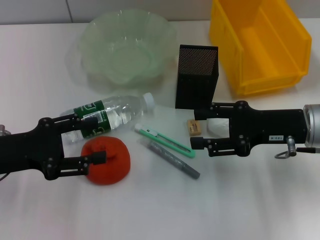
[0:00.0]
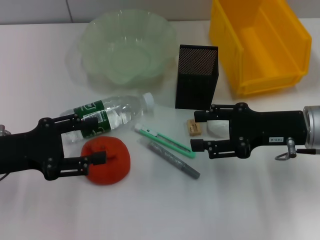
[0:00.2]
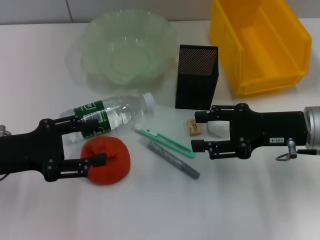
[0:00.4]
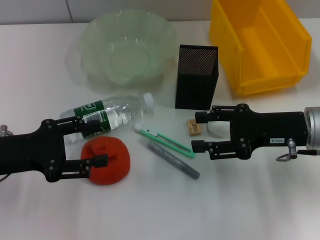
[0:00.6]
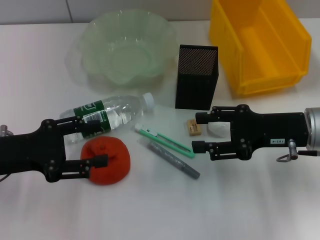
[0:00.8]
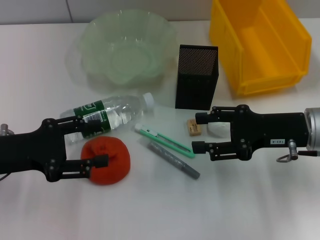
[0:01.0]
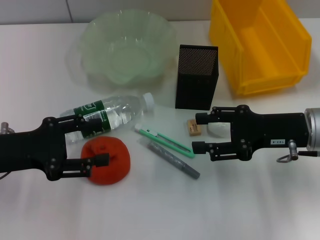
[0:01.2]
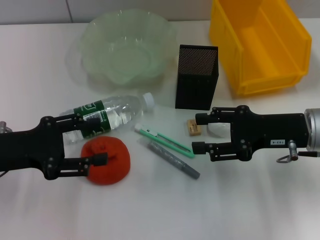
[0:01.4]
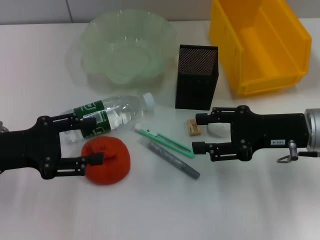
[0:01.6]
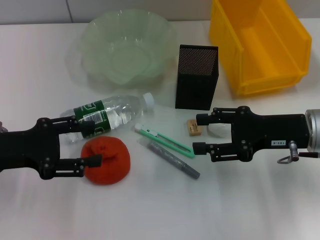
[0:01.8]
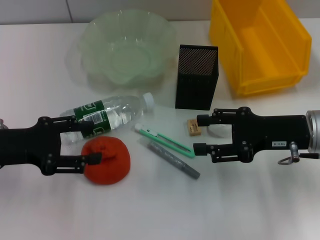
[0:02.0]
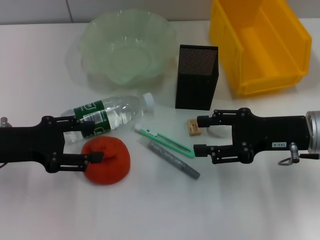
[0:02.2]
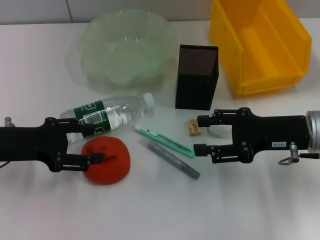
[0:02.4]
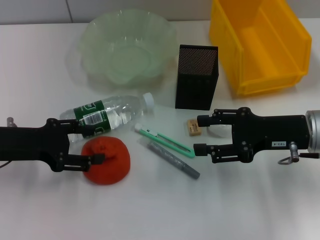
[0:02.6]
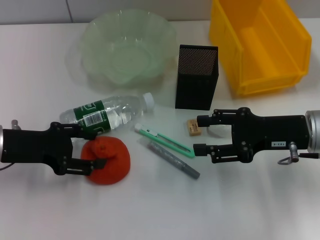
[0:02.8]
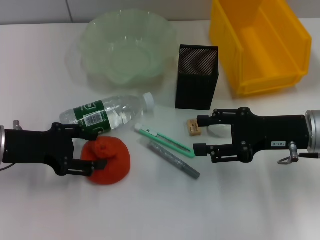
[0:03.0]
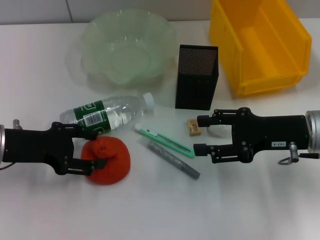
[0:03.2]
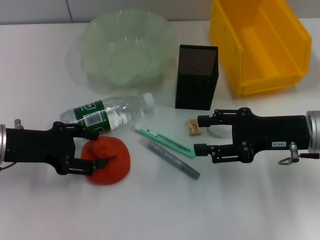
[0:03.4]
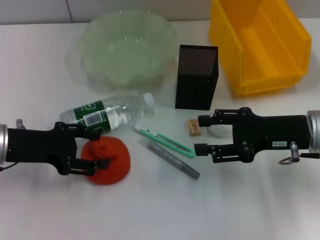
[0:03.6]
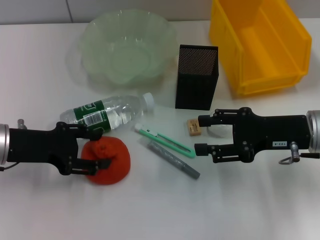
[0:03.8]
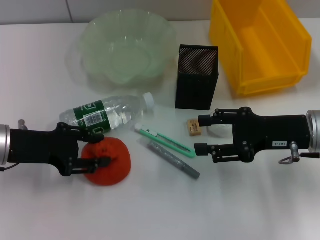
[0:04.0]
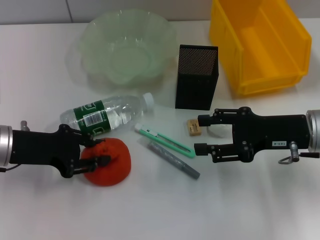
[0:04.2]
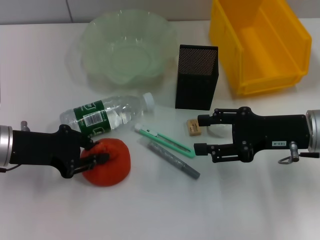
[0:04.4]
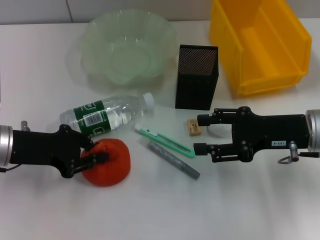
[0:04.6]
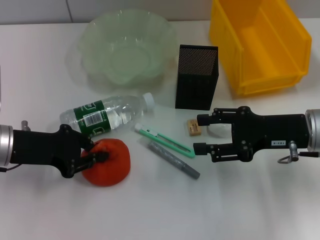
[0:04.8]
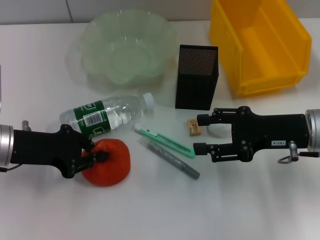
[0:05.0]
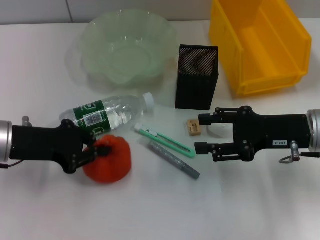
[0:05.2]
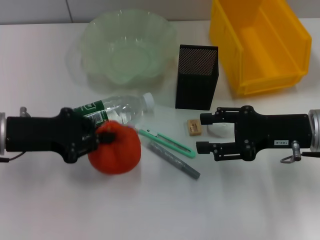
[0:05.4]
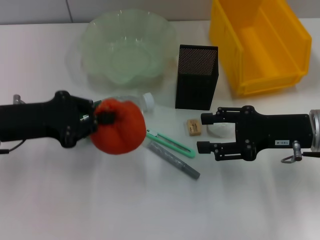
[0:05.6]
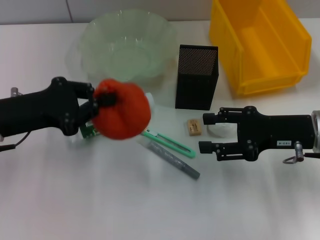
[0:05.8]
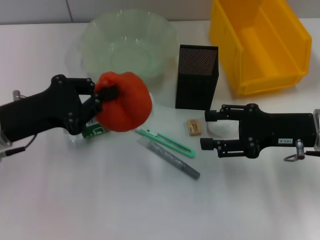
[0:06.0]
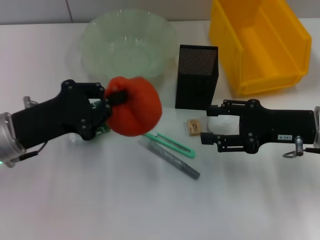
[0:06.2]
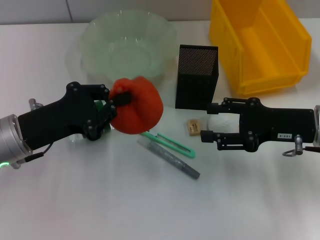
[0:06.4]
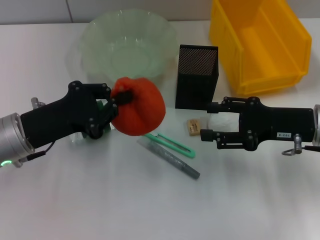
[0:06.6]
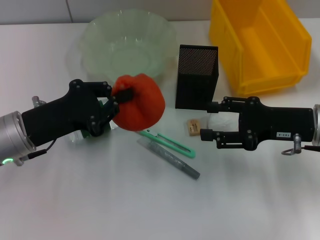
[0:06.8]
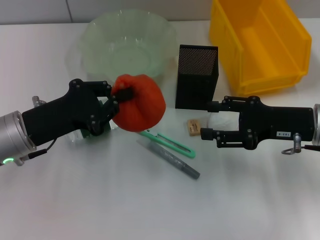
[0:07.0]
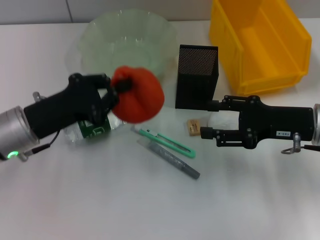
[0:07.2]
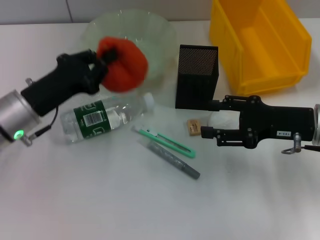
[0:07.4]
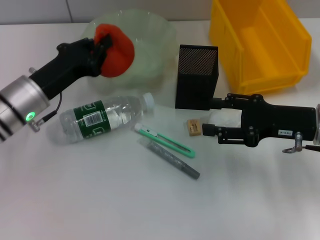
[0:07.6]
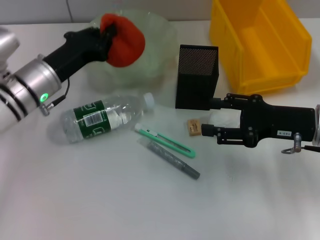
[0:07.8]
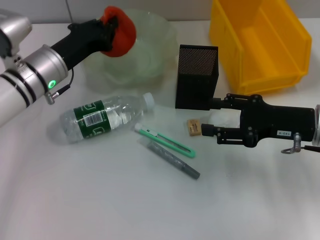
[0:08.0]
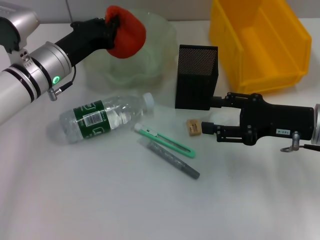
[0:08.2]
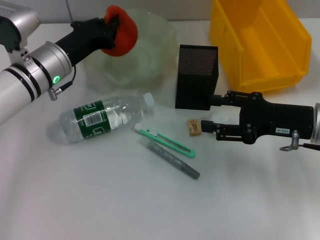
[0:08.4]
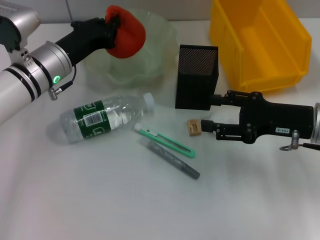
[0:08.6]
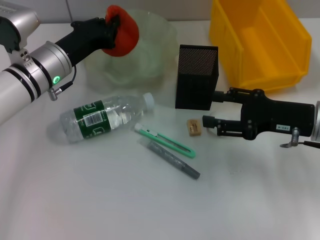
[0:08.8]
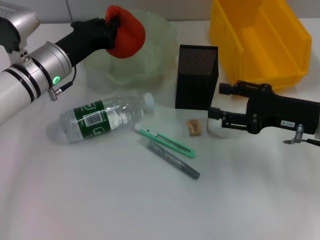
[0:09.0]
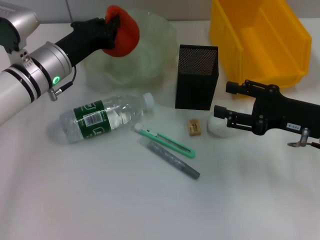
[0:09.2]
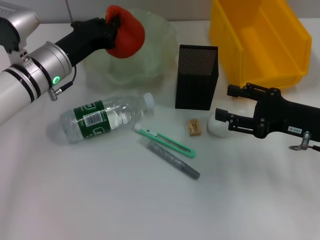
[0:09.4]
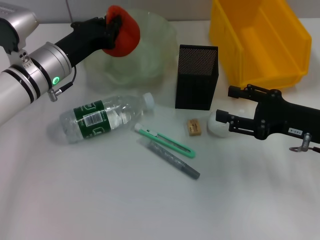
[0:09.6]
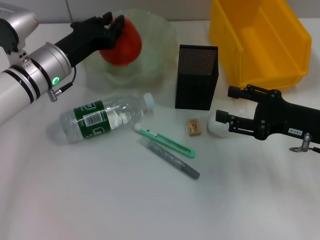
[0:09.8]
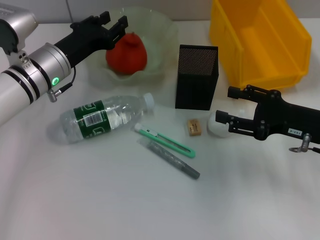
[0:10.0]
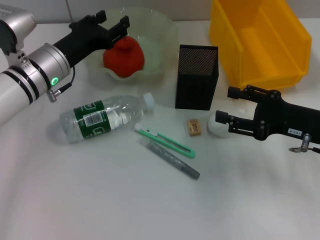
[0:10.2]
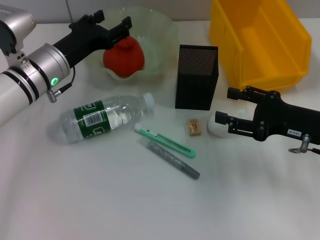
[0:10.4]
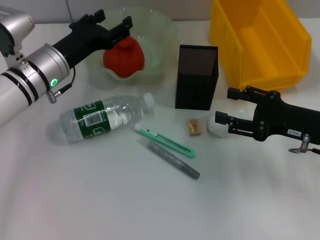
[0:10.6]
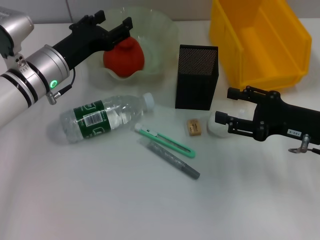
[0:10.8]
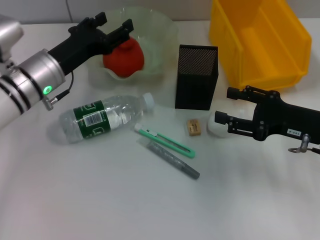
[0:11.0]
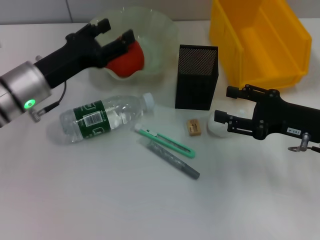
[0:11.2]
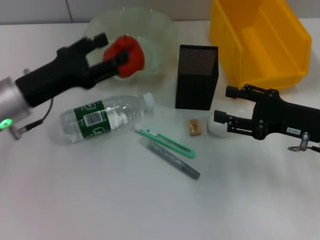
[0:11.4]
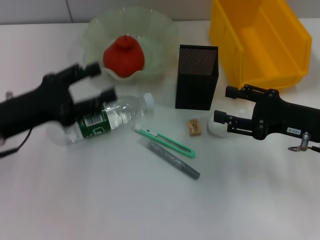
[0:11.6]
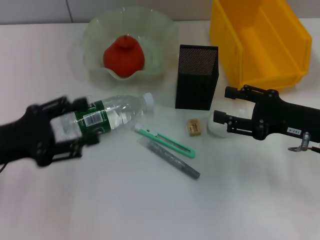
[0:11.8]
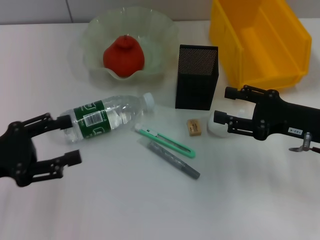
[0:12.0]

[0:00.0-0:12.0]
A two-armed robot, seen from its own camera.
Step, 0:00.0 to 0:04.4: Grab the orange with the left hand.
Step, 0:04.8 to 0:10.0: Place the orange into the fruit bowl with the left hand.
0:00.0 to 0:01.6: Neither gripper changes place.
0:01.6 to 0:03.0: There are only small adjustments of the grippers.
0:03.0 to 0:04.4: The left gripper closes its fingers.
0:04.4 to 0:06.0: The left gripper closes up.
0:06.0 to 0:07.6: The left gripper is displaced forward by some 5 cm.
0:07.6 to 0:09.0: The left gripper goes roughly 5 cm forward.
0:09.0 to 0:10.4: The left gripper opens its fingers.
0:10.4 to 0:12.0: The left gripper goes roughly 20 cm backward and to the left.

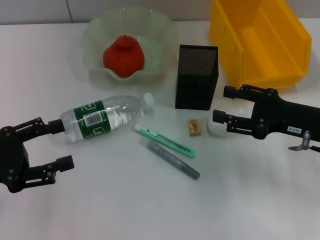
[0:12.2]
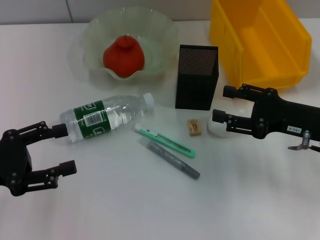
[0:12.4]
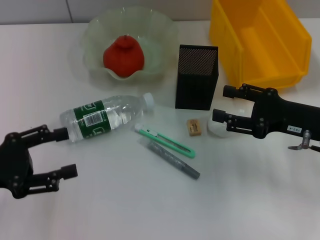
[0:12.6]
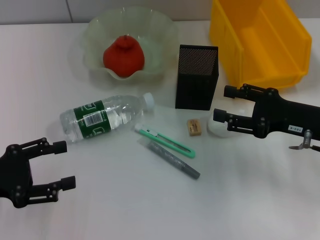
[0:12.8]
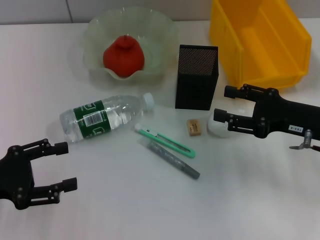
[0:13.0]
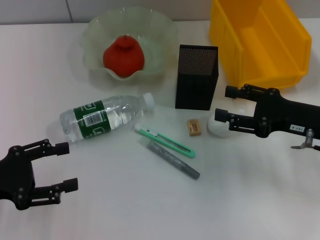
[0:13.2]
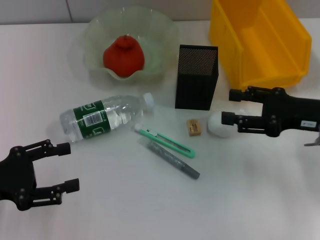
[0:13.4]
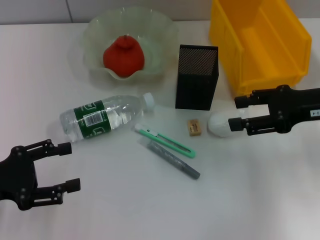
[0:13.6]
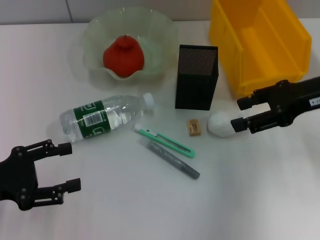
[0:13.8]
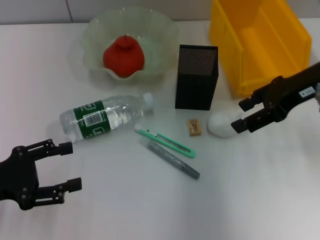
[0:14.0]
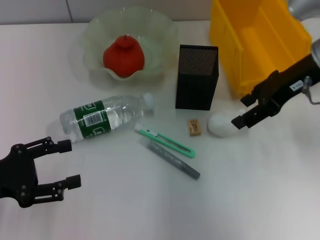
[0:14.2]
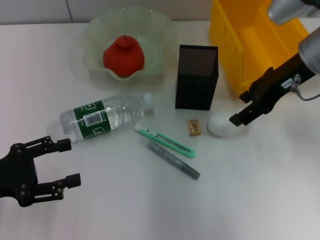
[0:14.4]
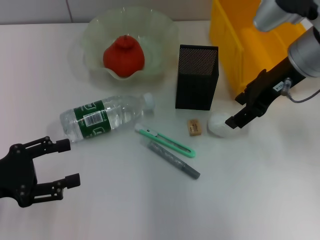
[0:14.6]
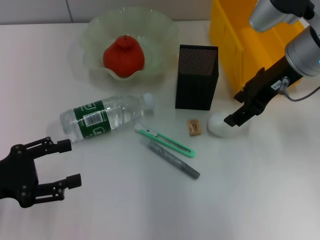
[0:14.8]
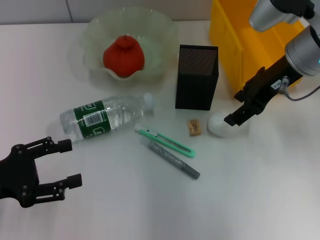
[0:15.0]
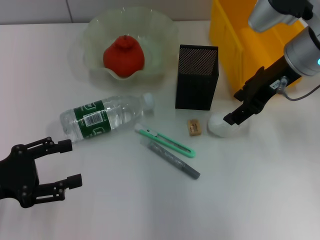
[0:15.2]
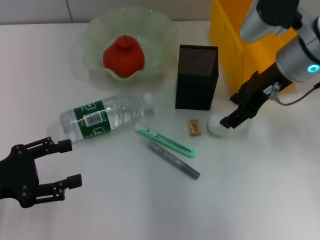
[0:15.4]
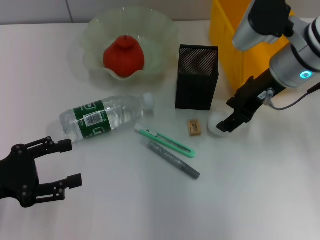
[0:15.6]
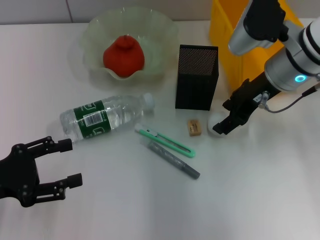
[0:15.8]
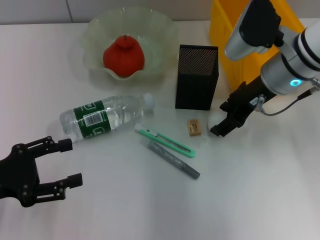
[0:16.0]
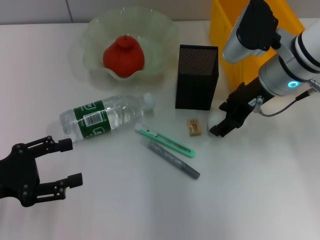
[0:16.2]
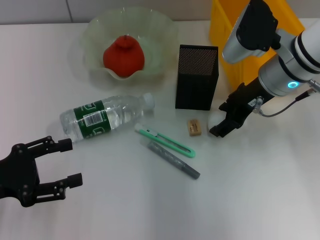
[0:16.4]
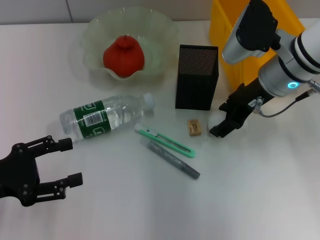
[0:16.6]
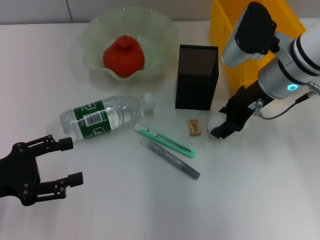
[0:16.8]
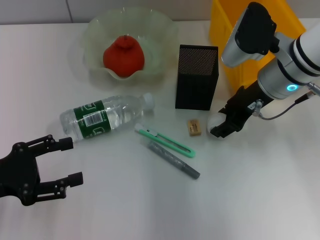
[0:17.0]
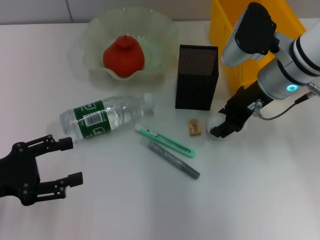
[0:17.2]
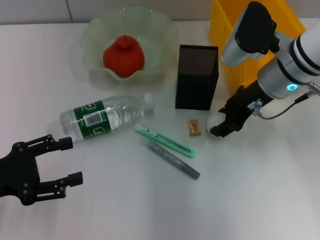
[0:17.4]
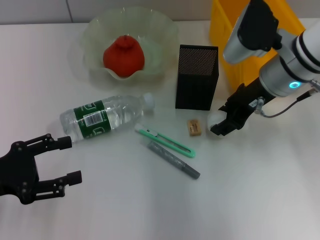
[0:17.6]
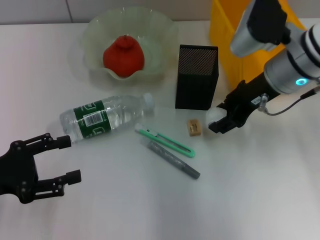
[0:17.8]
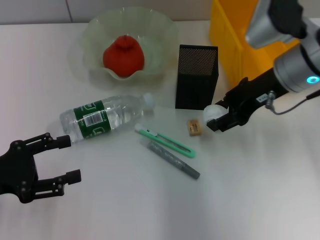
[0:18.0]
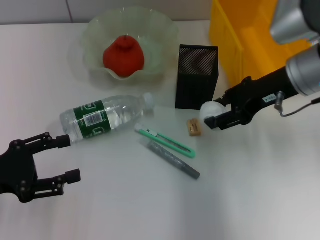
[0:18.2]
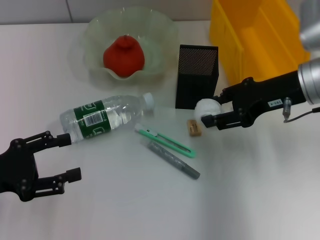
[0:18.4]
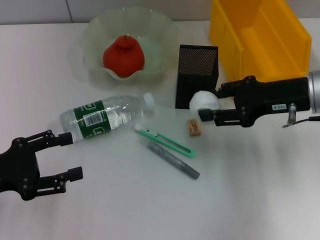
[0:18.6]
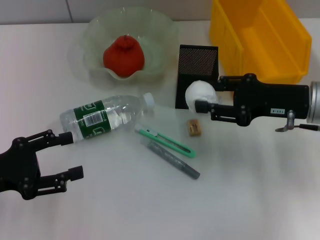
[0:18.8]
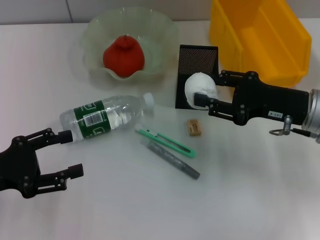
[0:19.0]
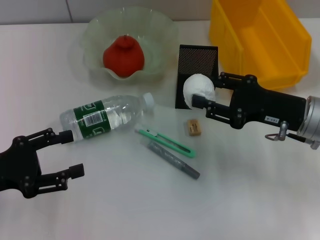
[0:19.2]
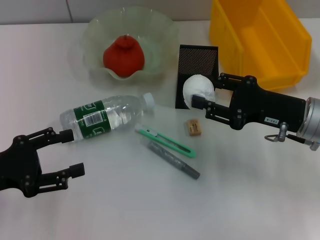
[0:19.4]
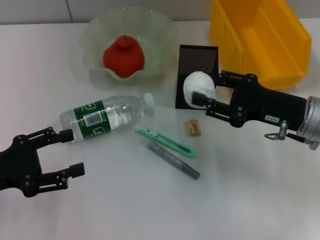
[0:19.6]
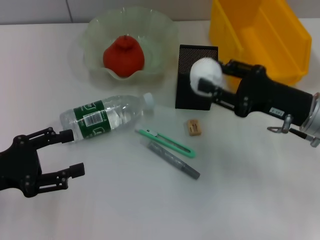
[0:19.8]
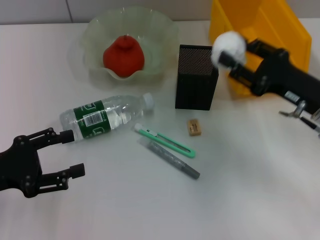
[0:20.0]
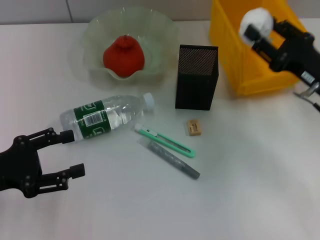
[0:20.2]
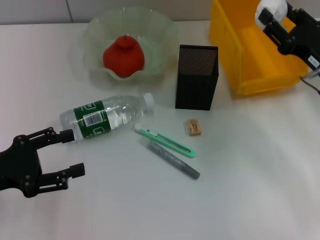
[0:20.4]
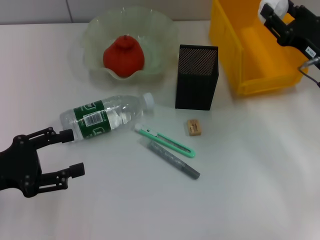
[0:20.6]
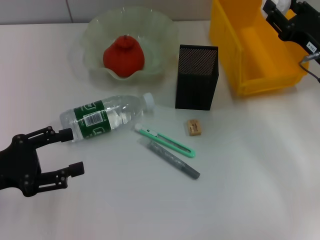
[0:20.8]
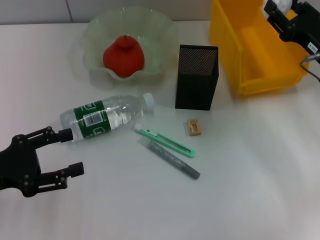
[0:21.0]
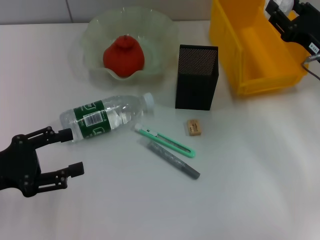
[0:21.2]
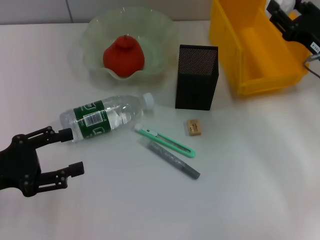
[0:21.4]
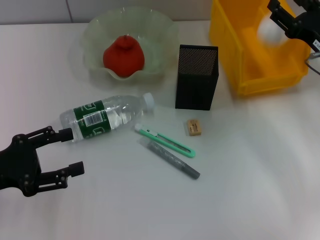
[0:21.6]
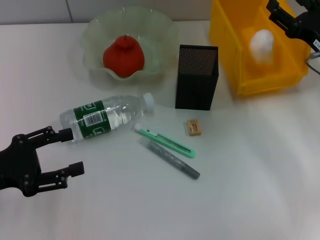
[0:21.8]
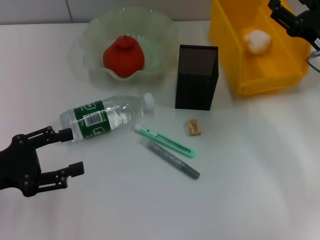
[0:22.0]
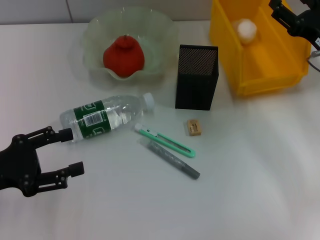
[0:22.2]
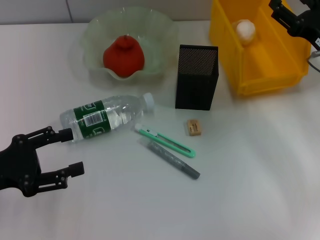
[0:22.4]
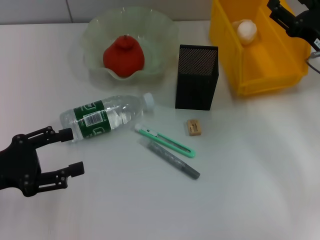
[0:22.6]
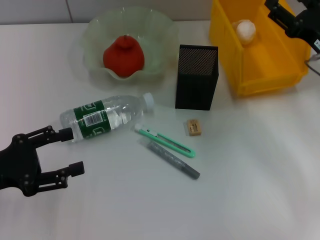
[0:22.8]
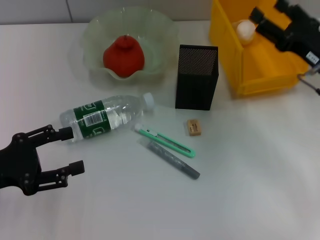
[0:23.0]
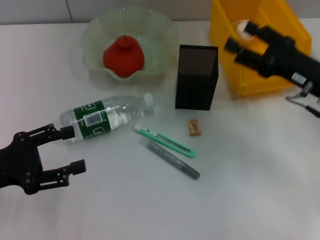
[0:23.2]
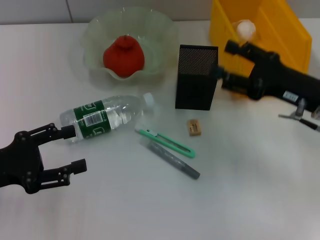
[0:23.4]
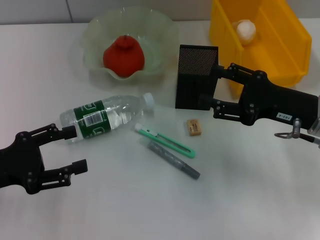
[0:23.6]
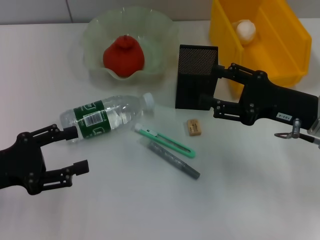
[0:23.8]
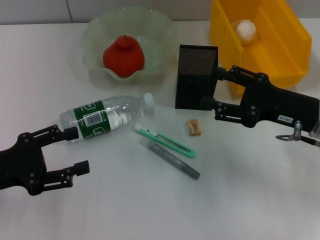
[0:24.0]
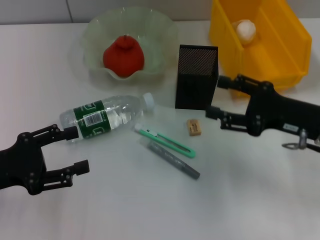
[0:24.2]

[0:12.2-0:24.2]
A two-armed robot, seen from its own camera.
Step, 0:12.2 to 0:17.0: Grab the paper ball with the right hand.
Step, 0:17.2 to 0:22.2: Place the paper ball into the trash can with the right hand.
0:12.2 to 0:13.8: The right gripper is displaced upward and forward by roughly 10 cm.
0:13.8 to 0:15.2: The right gripper heads to the left, covering some 5 cm.
0:15.2 to 0:16.6: There are only small adjustments of the grippers.
0:16.6 to 0:18.2: The right gripper changes place by about 5 cm.
0:18.2 to 0:19.8: The right gripper is displaced downward and backward by approximately 10 cm.
0:19.8 to 0:21.2: The right gripper goes about 5 cm forward.
0:21.2 to 0:22.6: The right gripper opens its fingers.
0:22.6 to 0:24.2: The right gripper goes roughly 5 cm backward.
